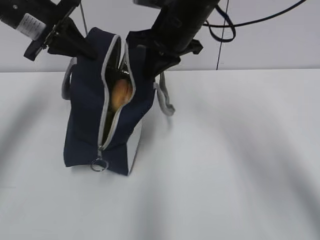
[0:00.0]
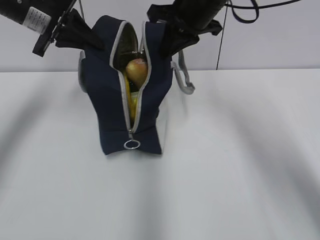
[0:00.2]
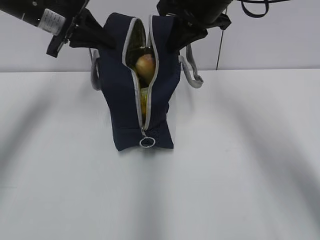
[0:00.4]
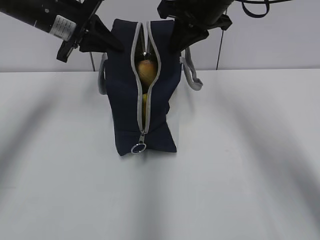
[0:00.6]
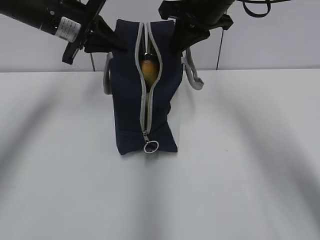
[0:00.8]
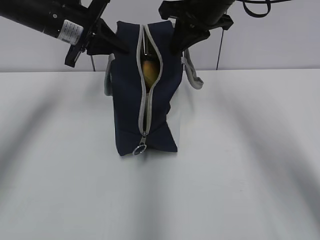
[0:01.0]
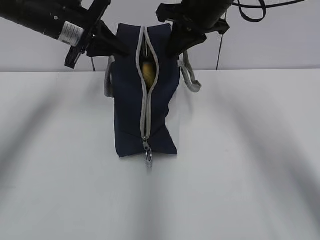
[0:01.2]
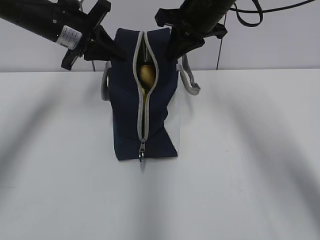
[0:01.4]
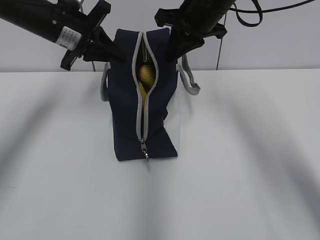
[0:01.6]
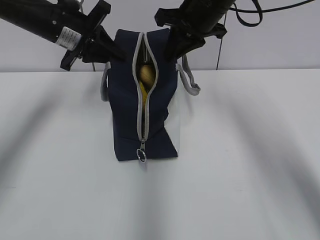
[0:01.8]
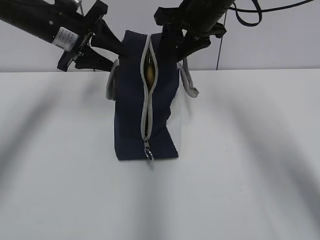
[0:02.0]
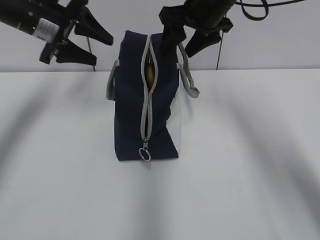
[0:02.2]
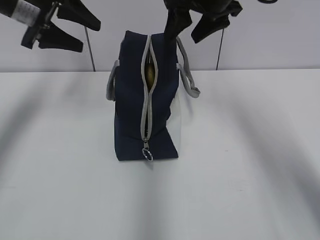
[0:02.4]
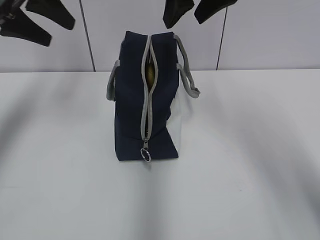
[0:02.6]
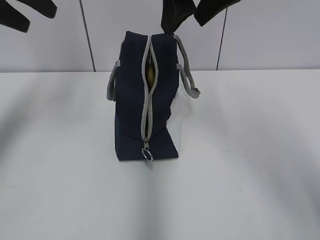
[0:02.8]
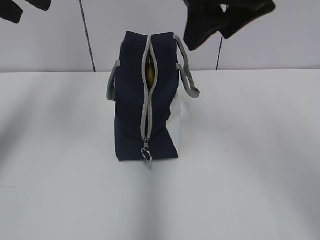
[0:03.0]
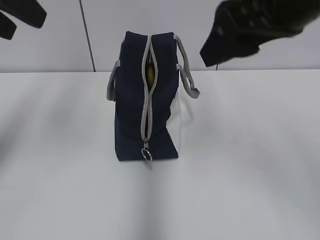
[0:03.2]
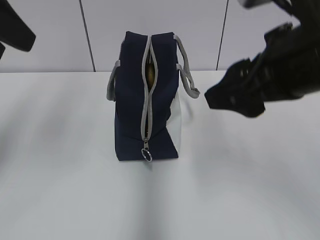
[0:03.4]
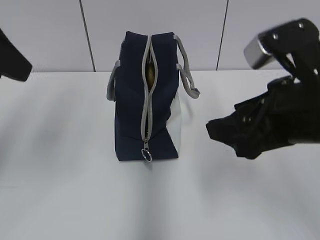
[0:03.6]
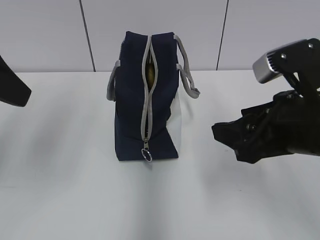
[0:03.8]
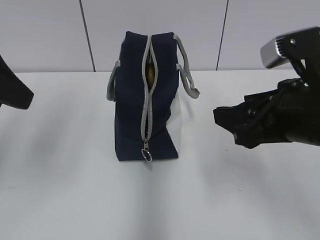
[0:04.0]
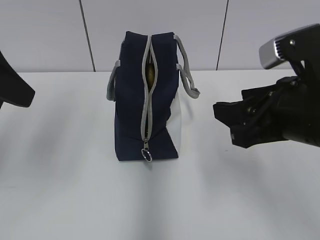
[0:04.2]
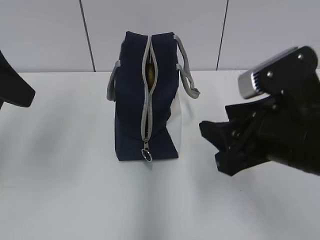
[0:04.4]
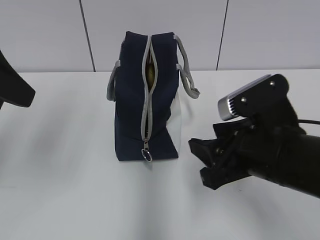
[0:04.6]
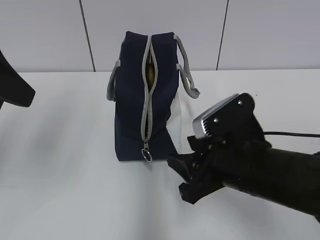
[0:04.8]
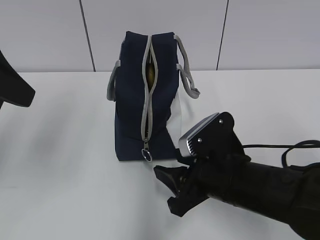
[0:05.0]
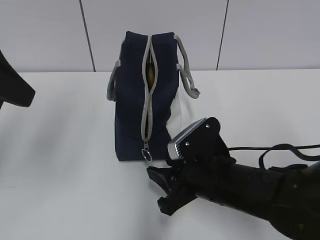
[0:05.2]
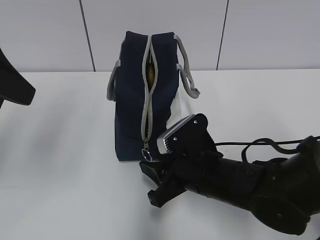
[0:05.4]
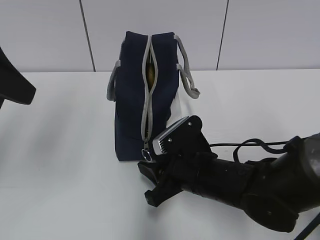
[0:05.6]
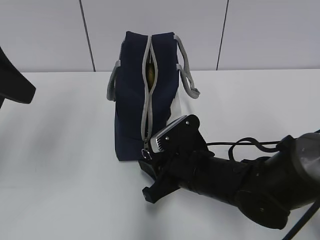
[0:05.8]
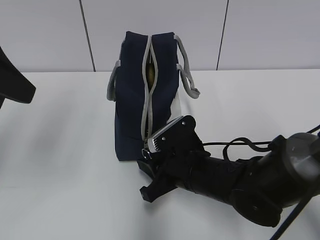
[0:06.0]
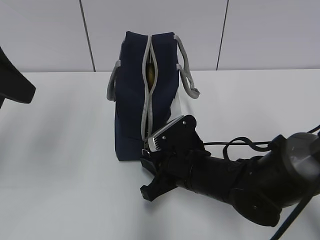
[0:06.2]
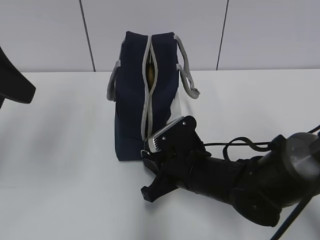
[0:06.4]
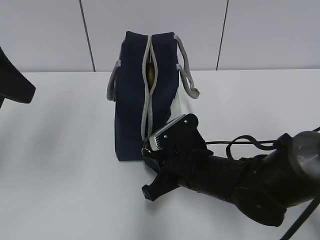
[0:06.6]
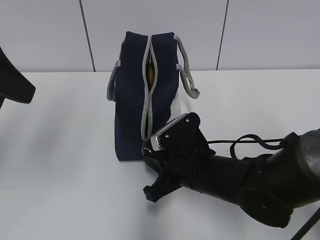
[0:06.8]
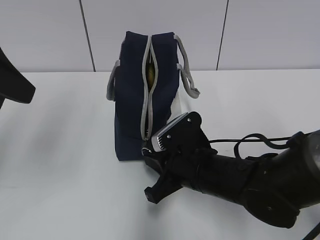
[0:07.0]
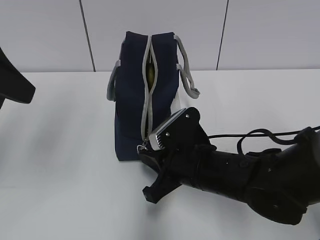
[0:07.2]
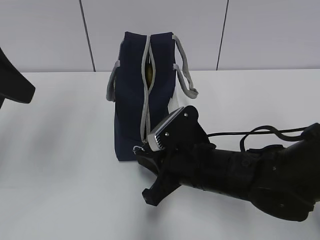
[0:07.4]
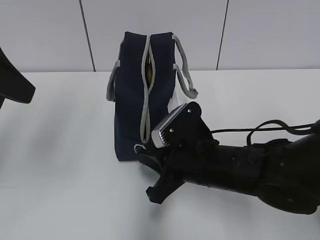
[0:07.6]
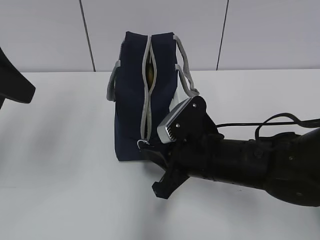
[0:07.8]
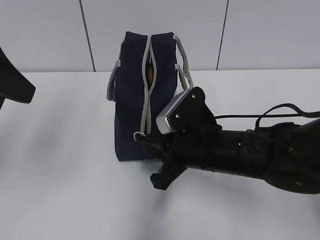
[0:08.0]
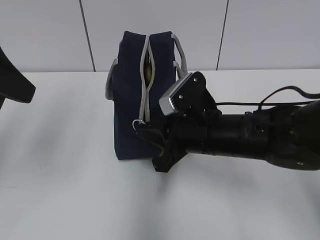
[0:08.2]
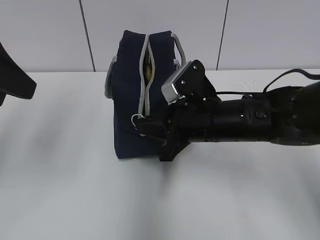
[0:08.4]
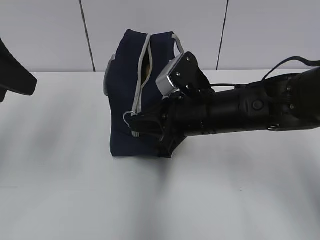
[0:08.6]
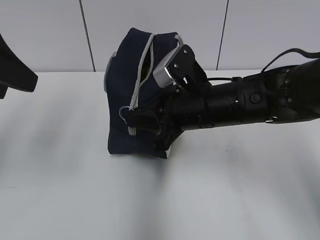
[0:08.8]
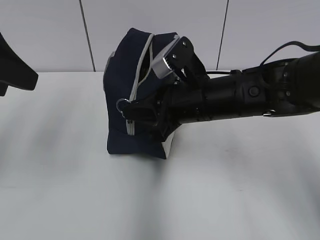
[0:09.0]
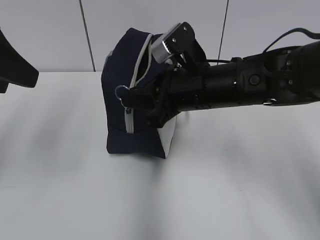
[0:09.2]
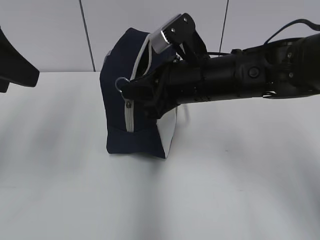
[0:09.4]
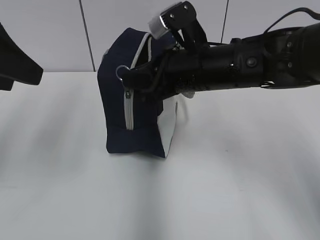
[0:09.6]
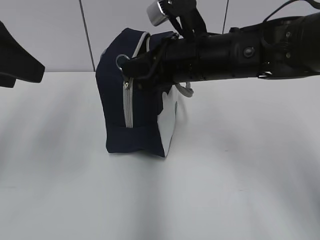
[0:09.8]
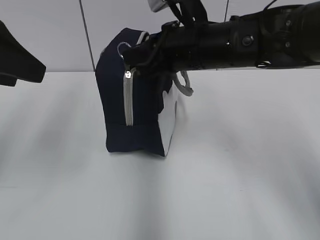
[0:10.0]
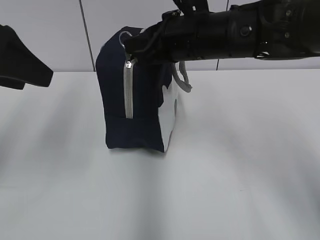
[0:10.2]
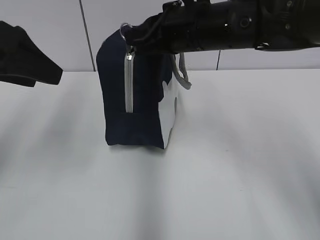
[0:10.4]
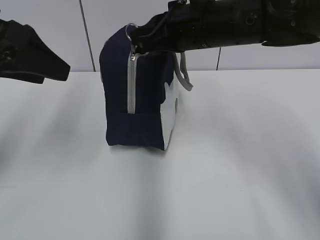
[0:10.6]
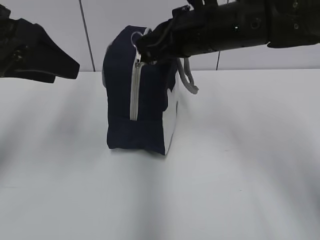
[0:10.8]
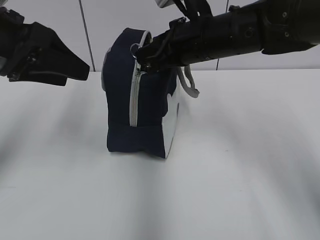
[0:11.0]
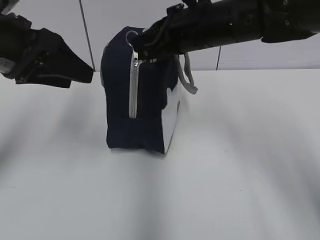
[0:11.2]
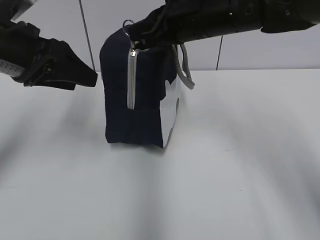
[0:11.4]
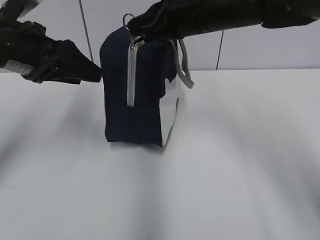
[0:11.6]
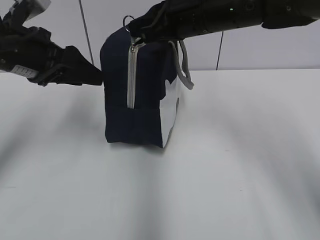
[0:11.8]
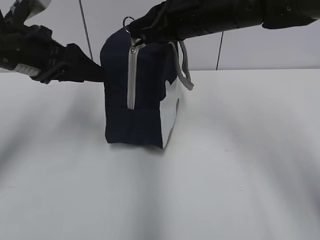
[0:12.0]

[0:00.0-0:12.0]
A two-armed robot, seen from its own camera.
Step, 0:00.0 to 0:00.4: Move the lunch bag to the left.
Step, 0:00.6 to 0:01.6: Move the lunch bag to the right.
0:00.0 to 0:01.6: The left gripper ends up about 5 cm from where it was. Meanwhile the right gripper shifts by about 5 cm.
0:01.6 to 0:03.0: The left gripper travels upward and backward by roughly 20 cm, and opens up, while the right gripper heads backward and upward, covering some 15 cm, and opens.
0:03.0 to 0:04.4: The left gripper shifts approximately 10 cm backward and downward, while the right gripper heads downward and backward, covering roughly 20 cm.
0:04.4 to 0:06.0: The right gripper is displaced downward, to the left and forward by roughly 20 cm.
0:06.0 to 0:07.6: The right gripper closes its fingers.
0:07.6 to 0:09.0: The right gripper is displaced upward and forward by some 10 cm.
0:09.0 to 0:10.4: The right gripper moves upward, approximately 10 cm.
0:10.4 to 0:12.0: The left gripper moves forward and downward, about 10 cm.

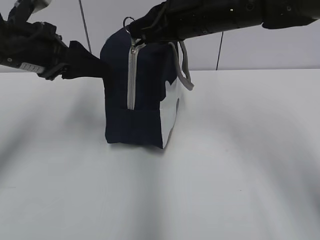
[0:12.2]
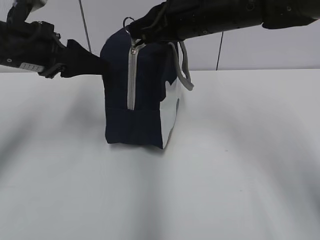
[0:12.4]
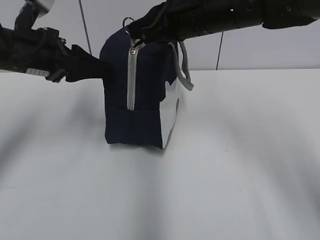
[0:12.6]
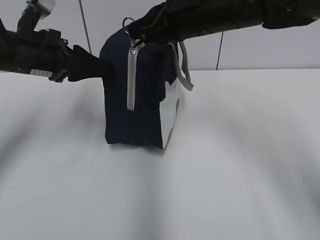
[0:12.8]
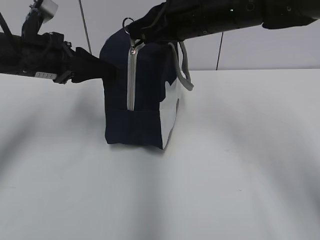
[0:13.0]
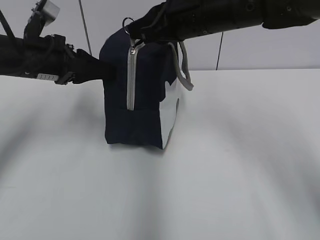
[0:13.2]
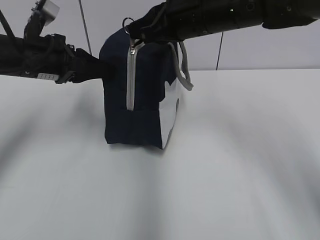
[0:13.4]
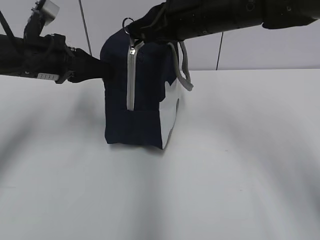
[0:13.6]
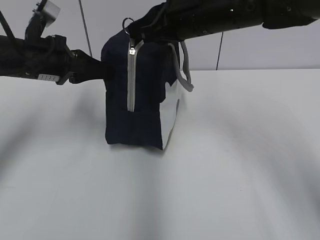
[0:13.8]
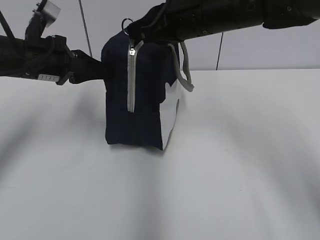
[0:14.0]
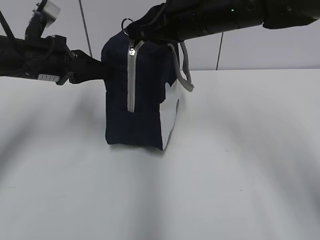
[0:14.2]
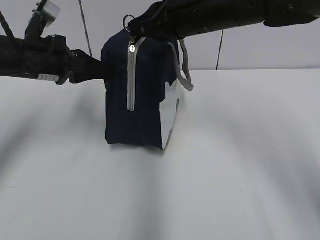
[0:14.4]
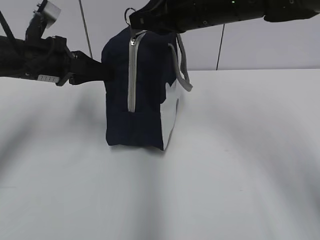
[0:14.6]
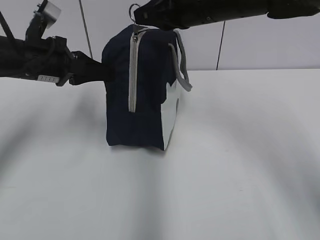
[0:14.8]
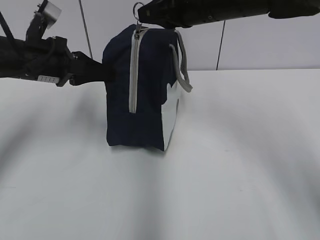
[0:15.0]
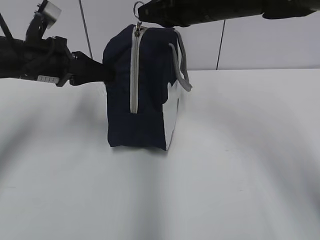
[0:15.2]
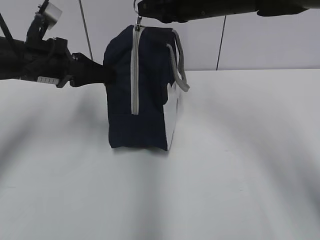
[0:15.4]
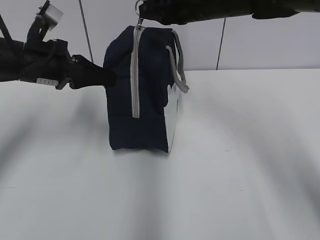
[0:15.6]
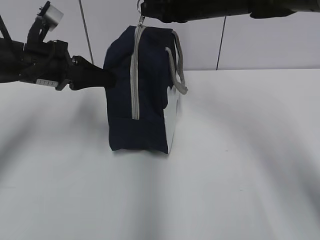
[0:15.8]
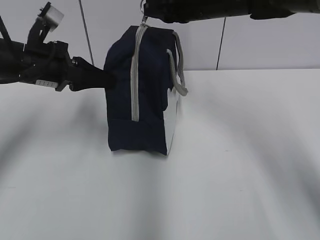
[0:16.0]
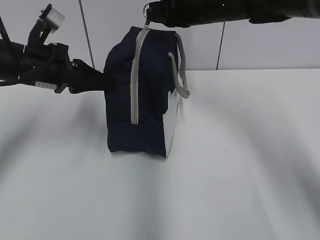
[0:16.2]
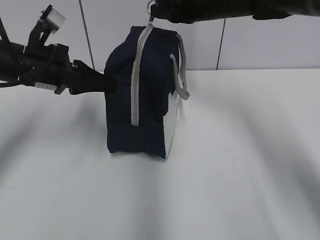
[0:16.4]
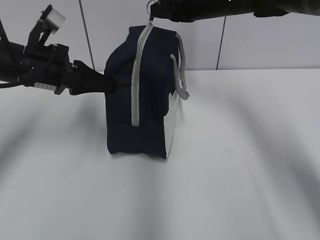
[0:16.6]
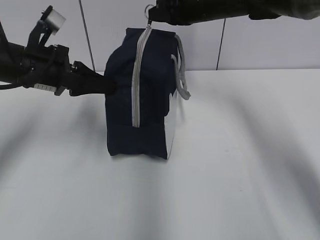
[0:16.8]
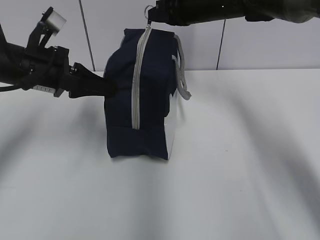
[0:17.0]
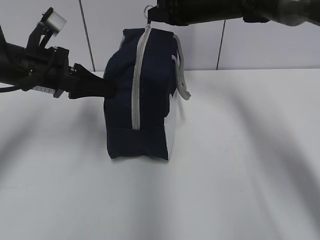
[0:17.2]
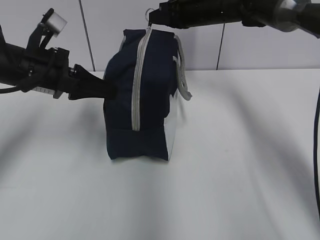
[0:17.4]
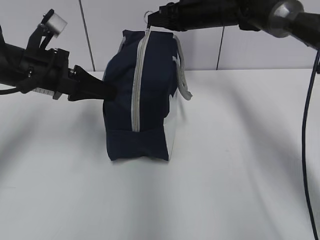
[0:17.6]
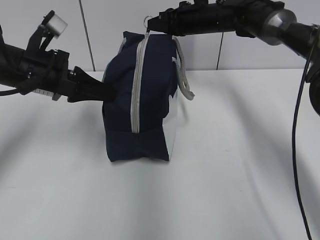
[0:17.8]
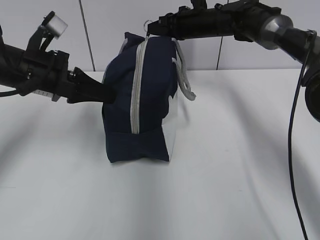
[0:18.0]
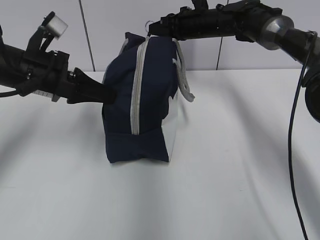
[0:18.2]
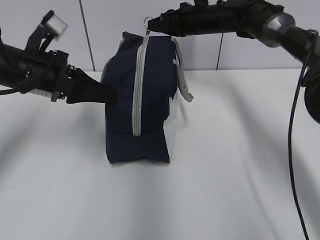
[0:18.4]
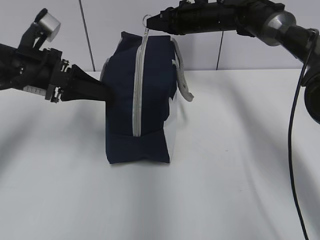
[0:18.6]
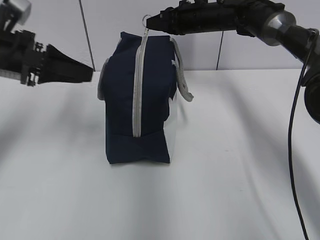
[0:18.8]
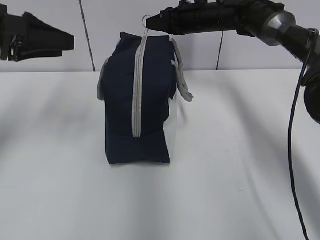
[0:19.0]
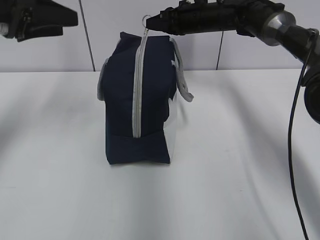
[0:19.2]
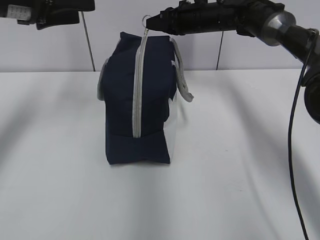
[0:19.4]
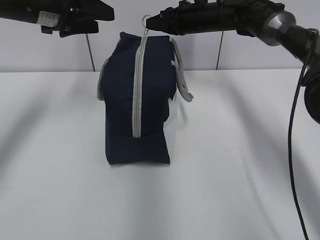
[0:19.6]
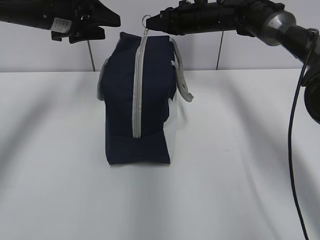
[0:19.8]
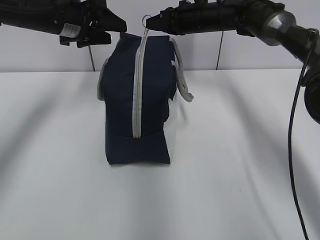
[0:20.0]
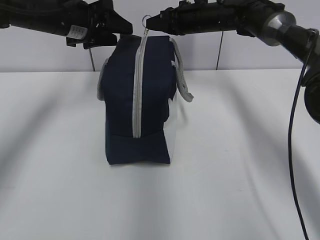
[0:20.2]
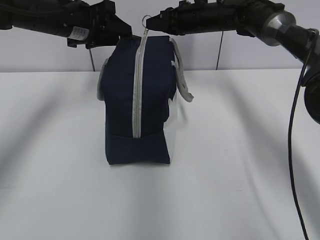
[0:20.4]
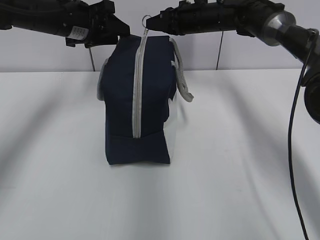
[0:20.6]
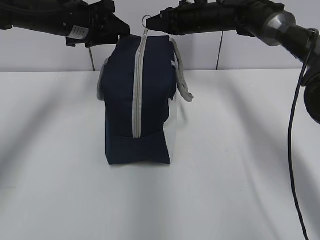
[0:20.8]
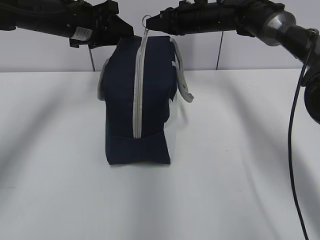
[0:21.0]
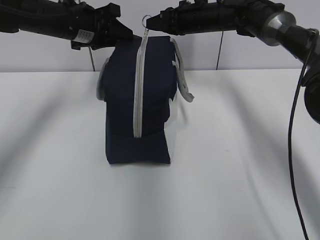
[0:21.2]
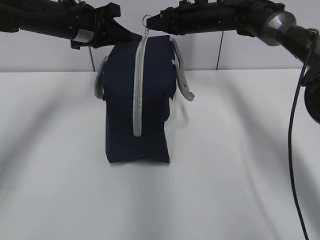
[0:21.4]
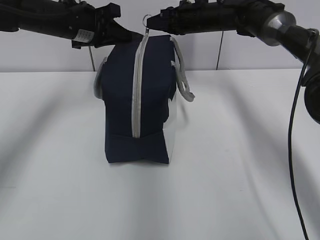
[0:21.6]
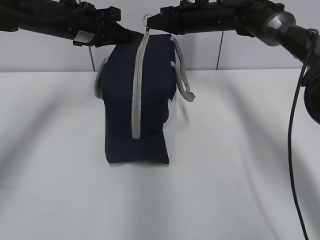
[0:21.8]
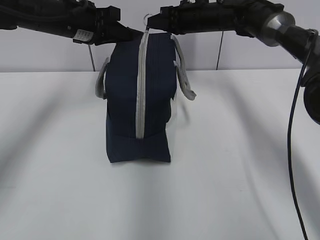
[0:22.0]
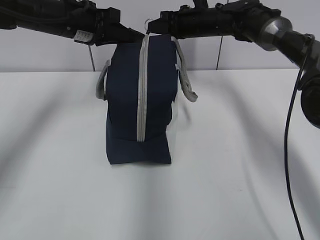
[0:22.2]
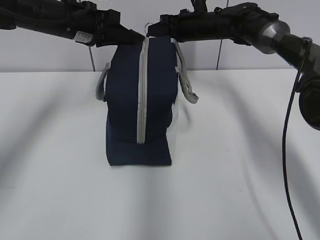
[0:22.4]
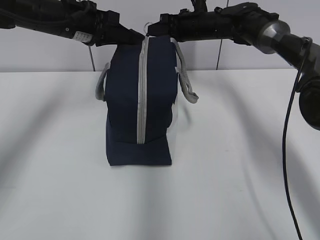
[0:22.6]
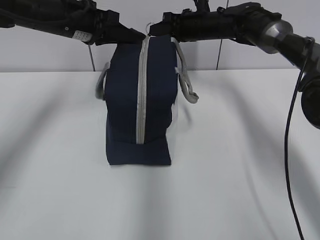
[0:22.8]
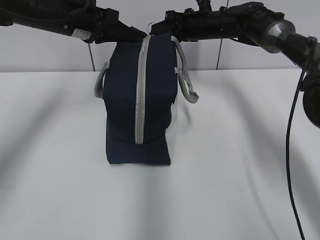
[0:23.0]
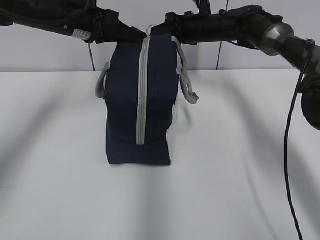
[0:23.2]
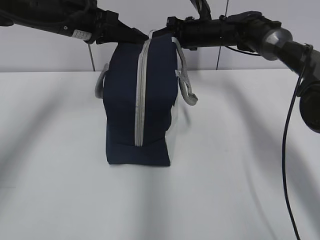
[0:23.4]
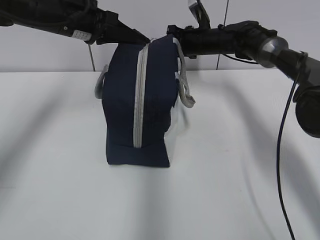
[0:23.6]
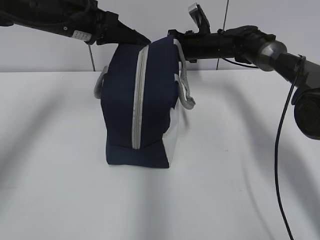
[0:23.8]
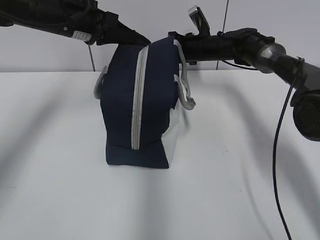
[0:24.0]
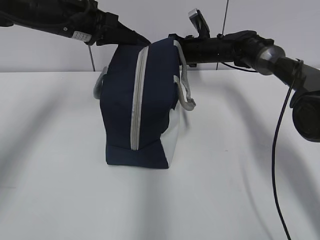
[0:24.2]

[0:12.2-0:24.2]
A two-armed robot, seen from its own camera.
Step, 0:12.2 to 0:14.2: Grab the lunch bag with your left hand.
0:12.2 to 0:13.8: The left gripper closes its fingers.
0:13.8 to 0:15.2: The grippers make only small movements.
0:15.2 to 0:16.6: The right gripper travels forward by approximately 10 cm.
0:16.6 to 0:18.2: The right gripper heads forward and downward, covering roughly 10 cm.
0:18.2 to 0:19.8: The left gripper shifts roughly 10 cm forward and upward, and opens its fingers.
0:19.8 to 0:21.2: The left gripper closes its fingers.
0:21.2 to 0:22.6: The left gripper closes its fingers.
0:22.6 to 0:24.2: The right gripper heads downward, covering approximately 5 cm.
